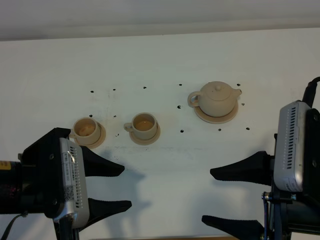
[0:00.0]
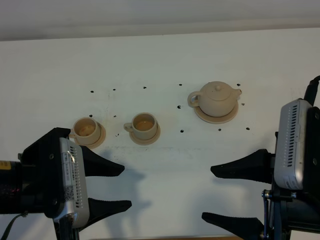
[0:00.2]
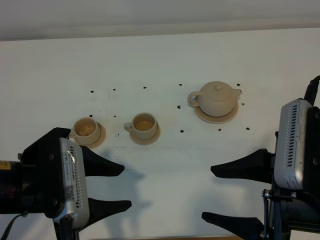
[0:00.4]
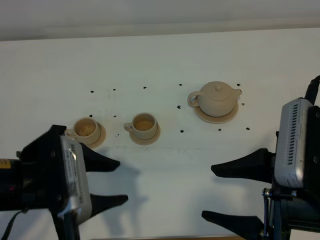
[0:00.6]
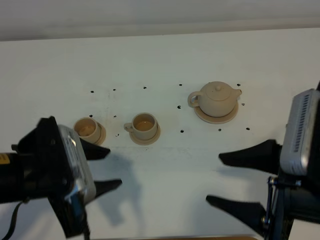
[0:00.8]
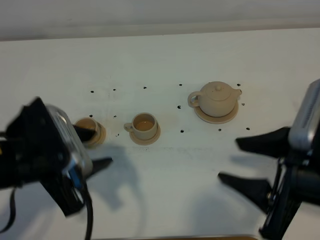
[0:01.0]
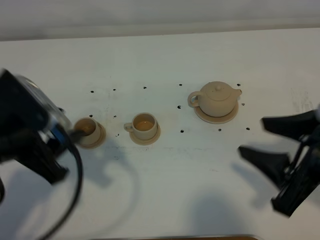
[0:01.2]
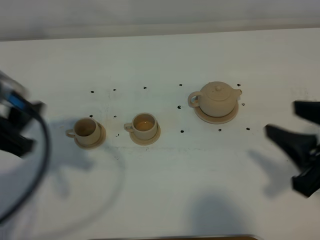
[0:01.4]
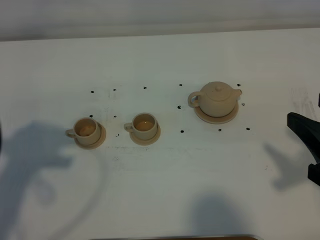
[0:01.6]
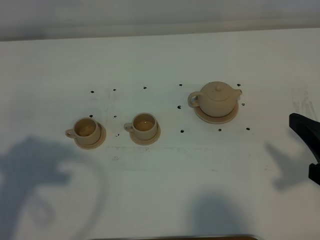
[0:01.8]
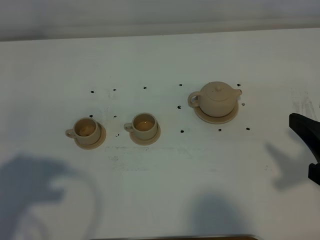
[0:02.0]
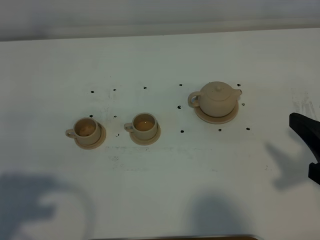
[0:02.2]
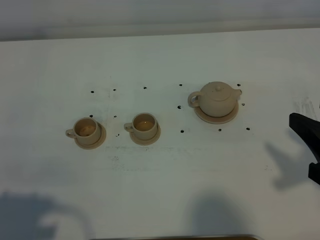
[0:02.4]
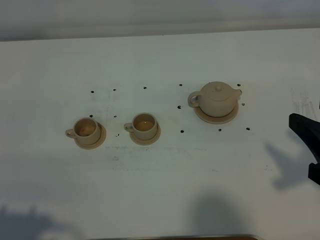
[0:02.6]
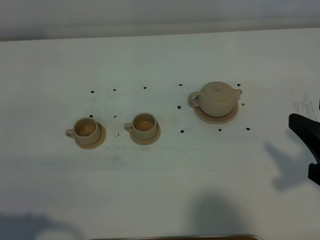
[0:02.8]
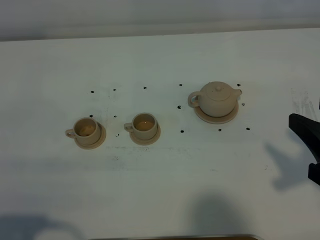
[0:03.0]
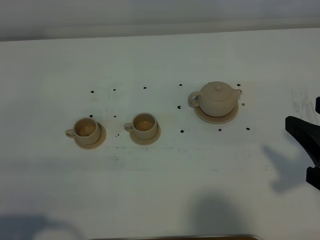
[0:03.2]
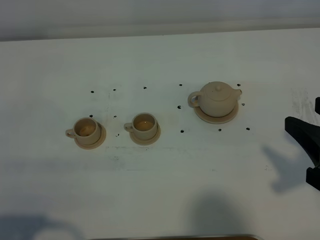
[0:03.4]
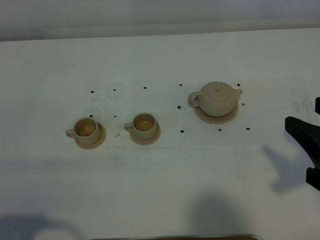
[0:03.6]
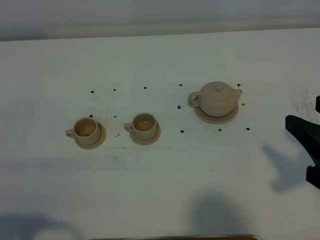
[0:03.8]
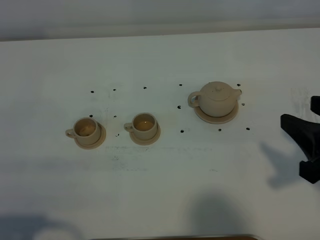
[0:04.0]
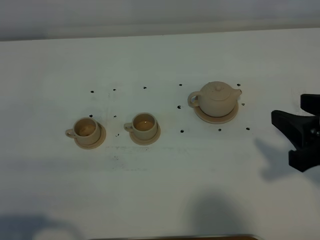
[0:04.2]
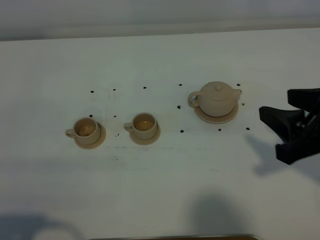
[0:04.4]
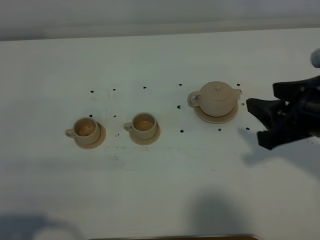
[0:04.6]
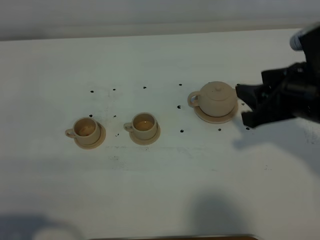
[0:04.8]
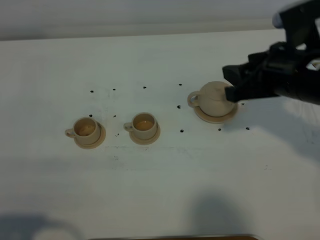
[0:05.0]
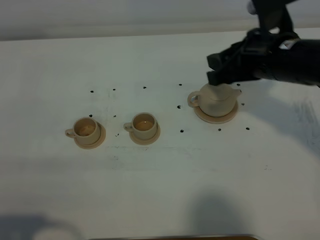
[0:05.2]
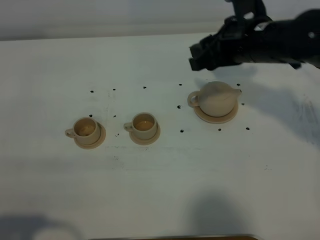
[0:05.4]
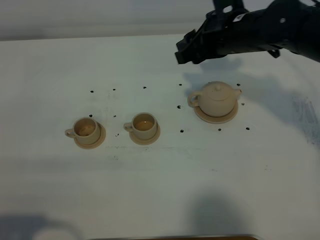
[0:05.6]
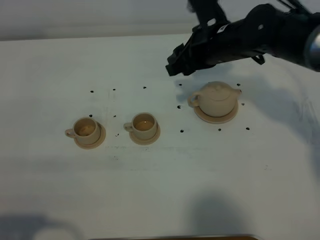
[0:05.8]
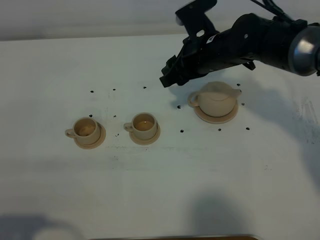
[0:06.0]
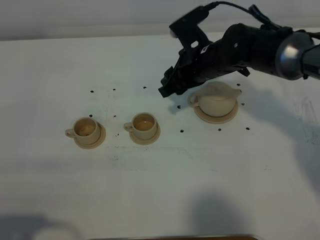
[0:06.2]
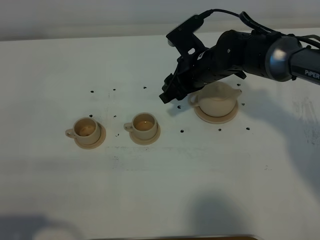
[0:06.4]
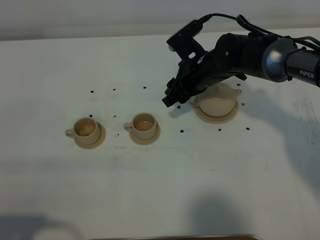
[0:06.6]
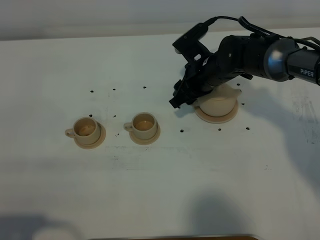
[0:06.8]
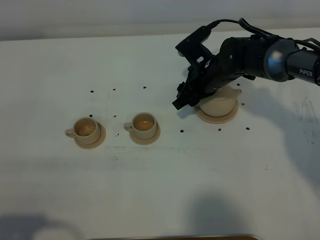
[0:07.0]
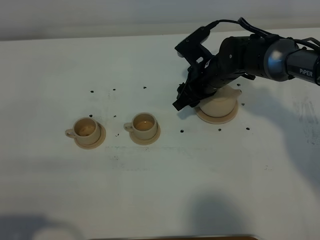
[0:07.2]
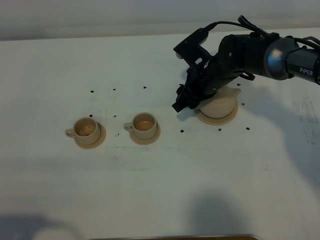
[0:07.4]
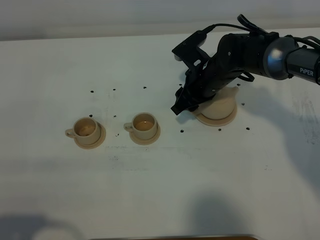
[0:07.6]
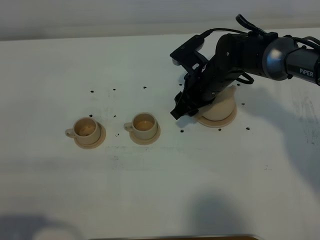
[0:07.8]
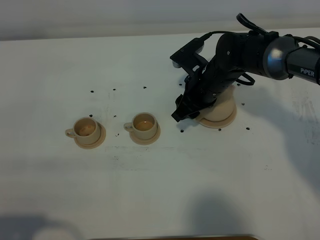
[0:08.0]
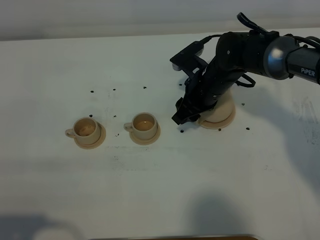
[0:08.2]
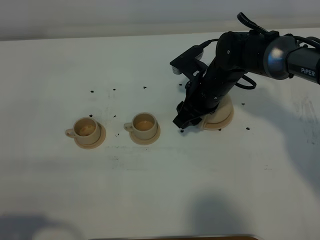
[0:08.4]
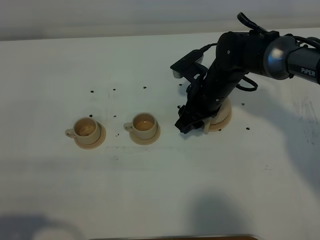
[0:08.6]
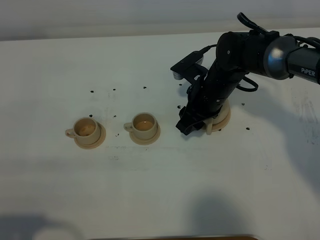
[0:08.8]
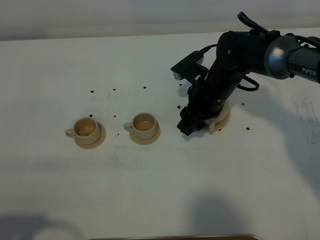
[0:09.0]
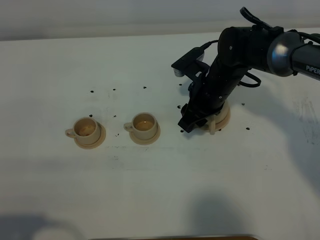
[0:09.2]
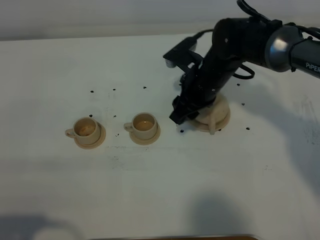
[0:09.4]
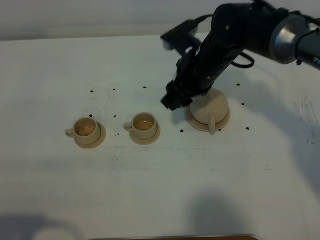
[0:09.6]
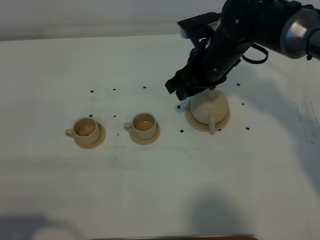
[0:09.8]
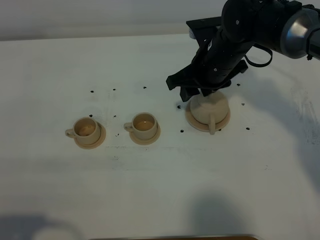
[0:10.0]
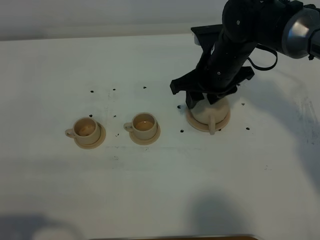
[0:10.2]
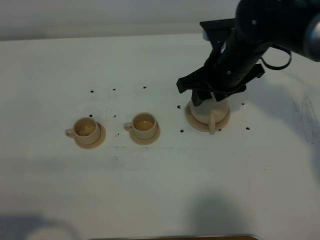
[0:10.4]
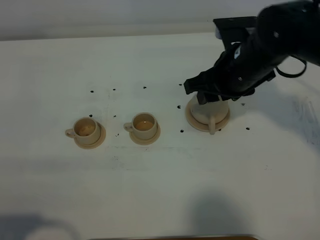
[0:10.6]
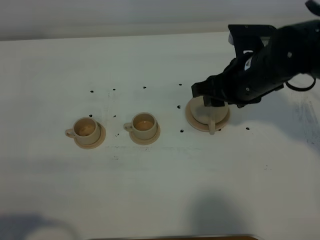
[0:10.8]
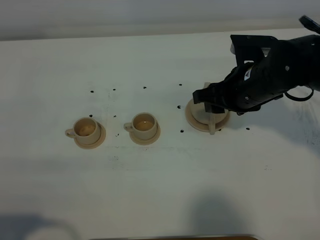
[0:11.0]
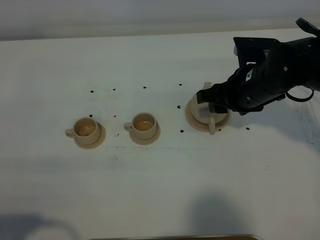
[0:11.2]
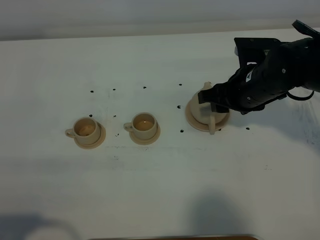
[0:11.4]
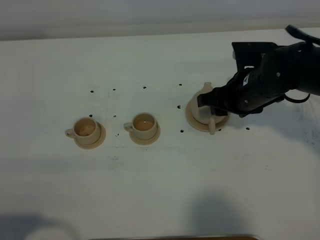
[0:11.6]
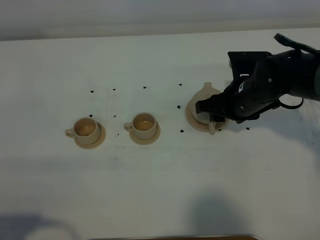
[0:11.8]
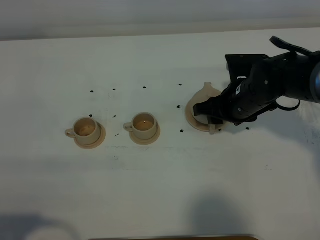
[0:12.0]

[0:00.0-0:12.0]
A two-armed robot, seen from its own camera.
Task of the whole recording: grasp the brown teapot and pour the tea into the two brown teacups one by one, put the brown teapot back in its original place.
0:00.0 to 0:01.6: The left gripper travels to the left and upward by roughly 15 cm. The right gripper goes approximately 10 cm to the right.
0:01.6 to 0:03.0: The left gripper shifts approximately 15 cm backward and downward.
0:03.0 to 0:04.4: The right gripper changes place by about 5 cm.
0:04.4 to 0:06.0: The right gripper travels forward and to the left by roughly 25 cm.
0:06.0 to 0:07.6: The right gripper is displaced downward by about 5 cm.
0:07.6 to 0:09.0: The grippers stay close to where they were, moving slightly.
0:09.0 to 0:10.4: The right gripper travels upward by about 10 cm.
0:10.4 to 0:12.0: The right gripper moves downward, some 10 cm.

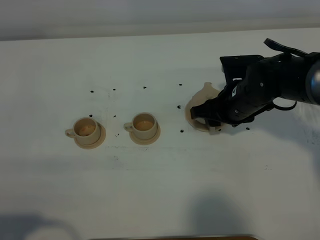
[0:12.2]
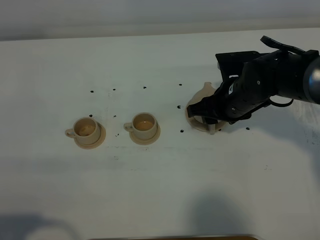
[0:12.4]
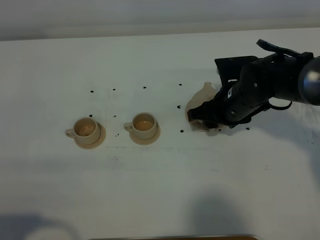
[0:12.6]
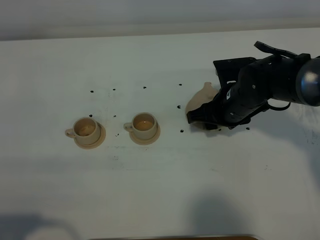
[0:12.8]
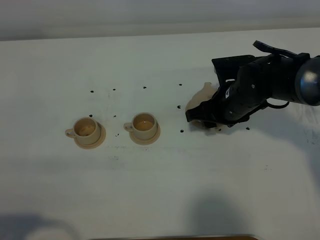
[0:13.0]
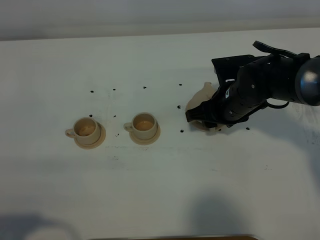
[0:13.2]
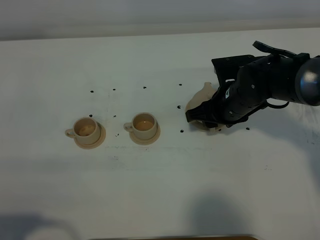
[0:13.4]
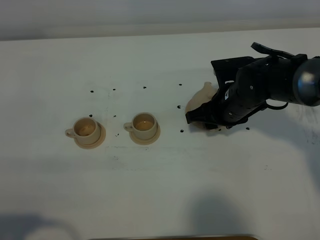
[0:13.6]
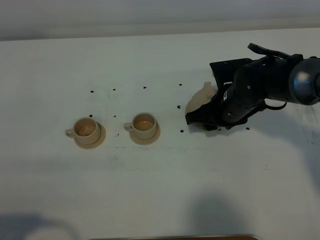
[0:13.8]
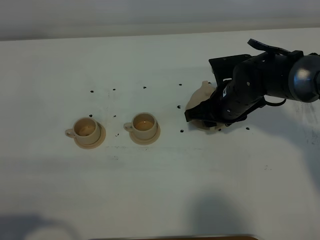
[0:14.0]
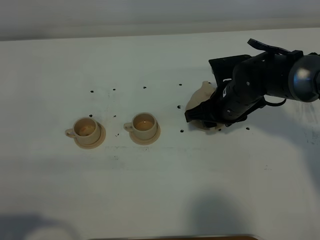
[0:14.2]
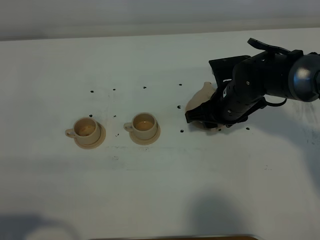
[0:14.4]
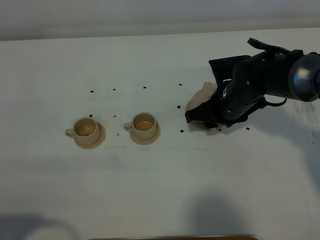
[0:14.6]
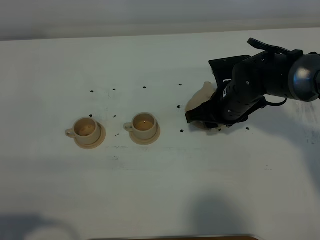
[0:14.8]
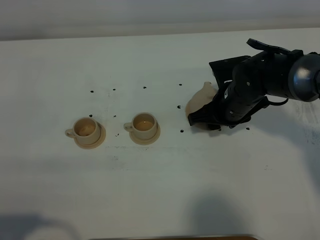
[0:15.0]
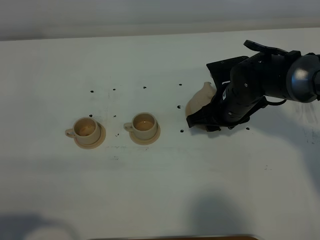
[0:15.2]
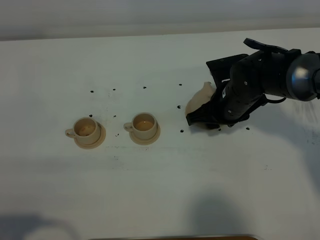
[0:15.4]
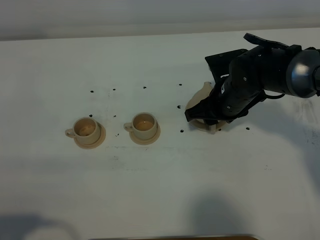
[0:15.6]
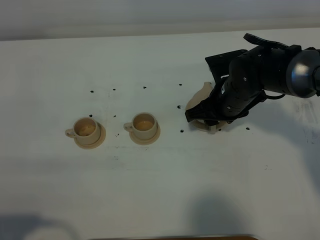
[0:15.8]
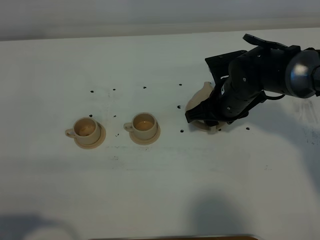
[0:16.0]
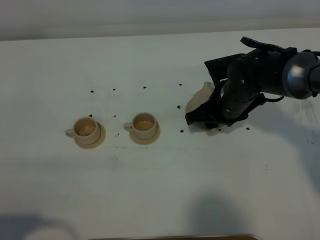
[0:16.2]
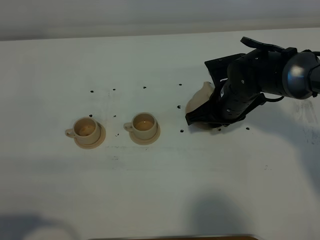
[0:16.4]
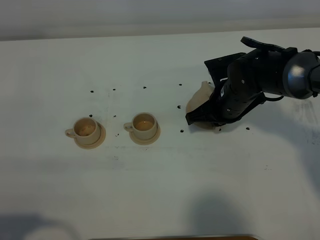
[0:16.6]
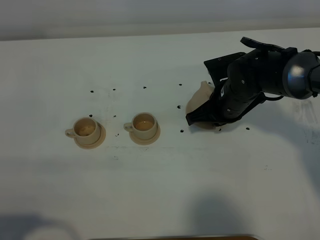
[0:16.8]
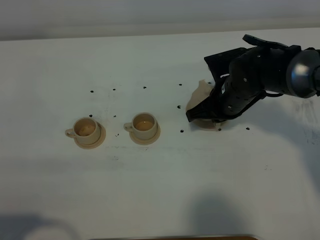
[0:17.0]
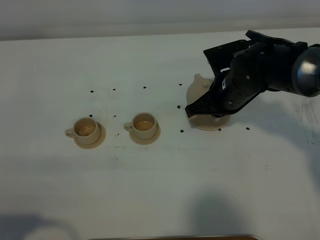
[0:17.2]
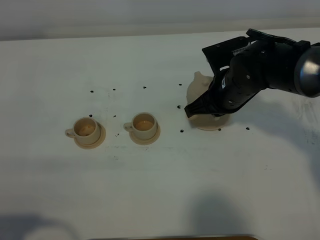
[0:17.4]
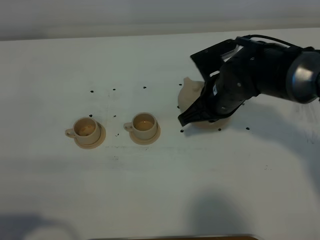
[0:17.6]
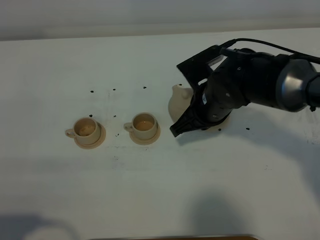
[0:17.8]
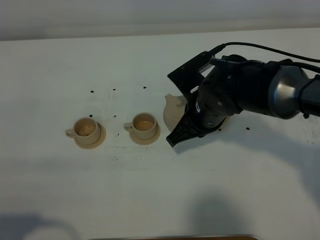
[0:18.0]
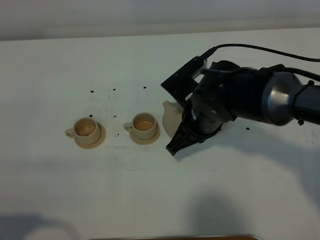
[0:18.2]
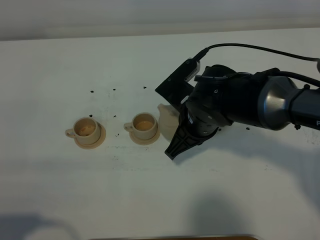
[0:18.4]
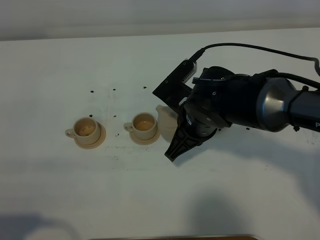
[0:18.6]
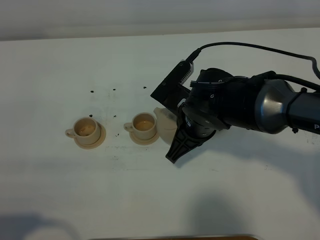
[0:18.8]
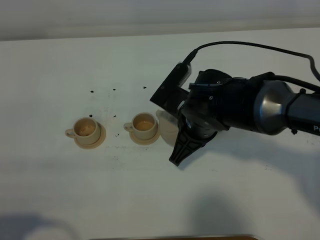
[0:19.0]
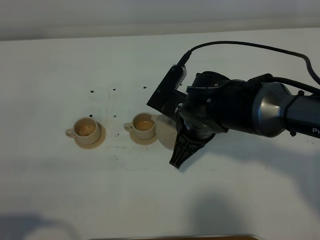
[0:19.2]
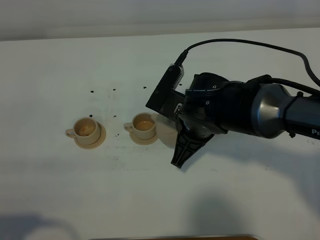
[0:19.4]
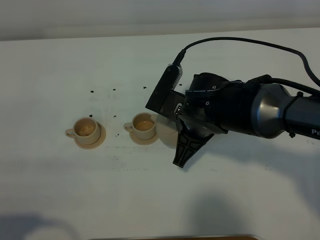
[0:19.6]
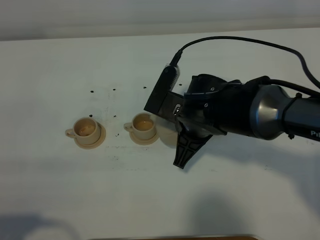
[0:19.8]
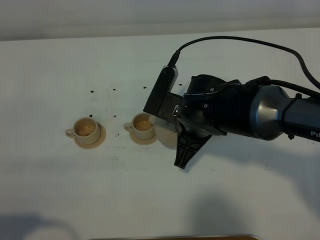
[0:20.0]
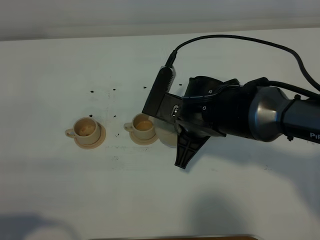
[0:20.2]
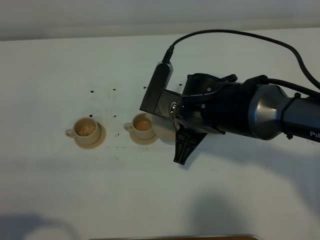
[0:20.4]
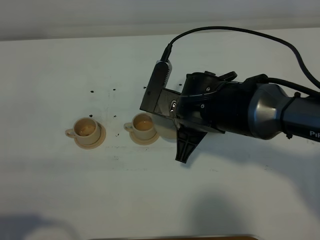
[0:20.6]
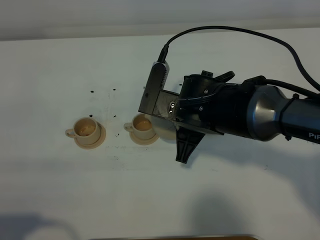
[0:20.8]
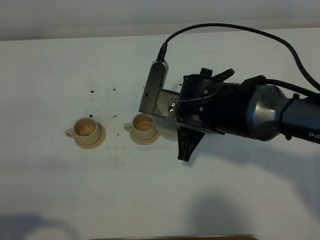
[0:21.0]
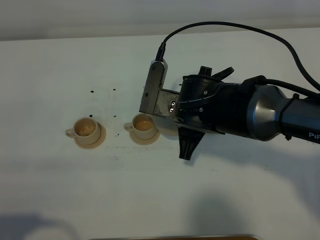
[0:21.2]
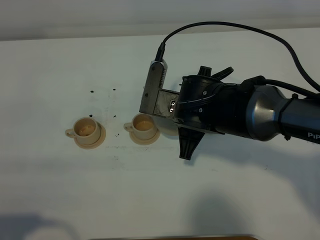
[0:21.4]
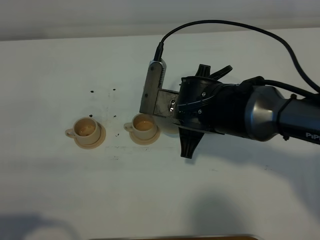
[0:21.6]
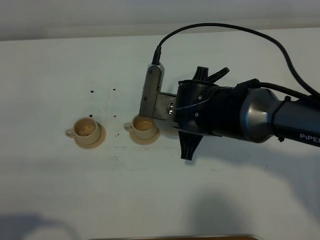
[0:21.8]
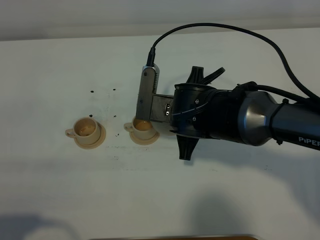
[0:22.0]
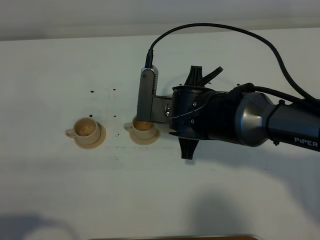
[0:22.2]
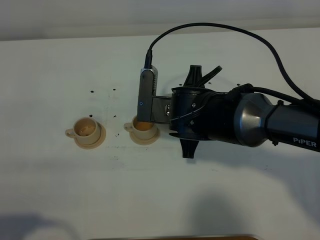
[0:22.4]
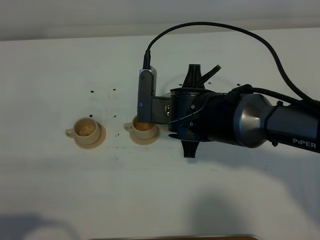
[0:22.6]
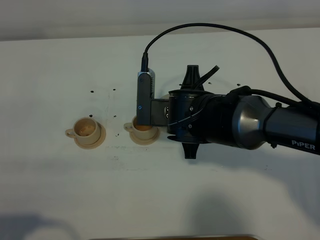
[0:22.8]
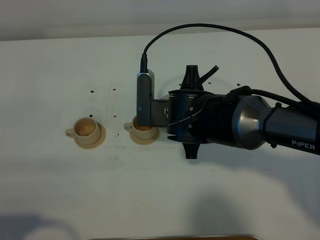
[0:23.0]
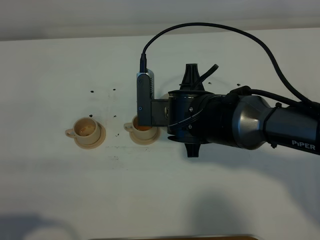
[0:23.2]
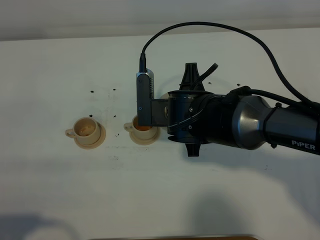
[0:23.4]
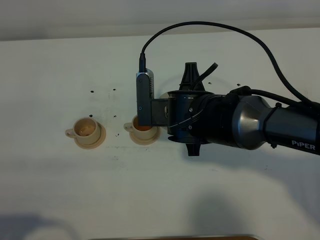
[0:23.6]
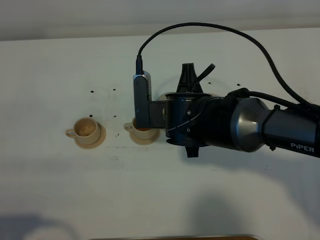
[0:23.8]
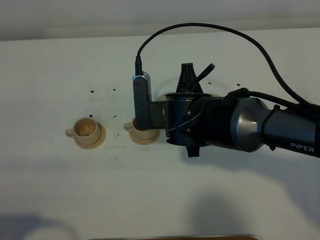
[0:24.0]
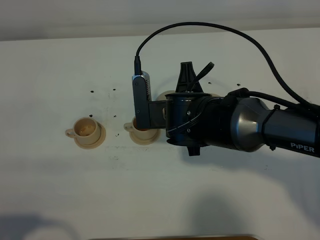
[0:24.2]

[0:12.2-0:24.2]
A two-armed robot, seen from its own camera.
Task of the whole recording: grasp the brown teapot and pour the tea into the two brown teacups one by one, put the brown teapot back in its original place.
Step, 0:12.2 to 0:17.4: Pick up the teapot with the right gripper.
0:12.2 to 0:15.2: The grippers stay close to where they were, moving slightly.
0:15.2 to 0:16.6: The right gripper closes its fingers.
0:16.6 to 0:18.2: The right gripper travels to the left and backward by some 10 cm.
0:19.8 to 0:21.2: The grippers stay close to where they were, moving slightly.
0:21.2 to 0:22.6: The grippers make only small movements.
0:22.6 to 0:24.2: The grippers stay close to where they were, moving slightly.
